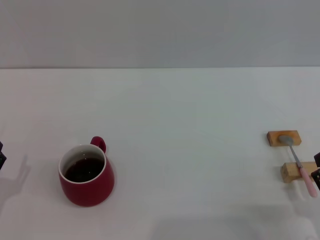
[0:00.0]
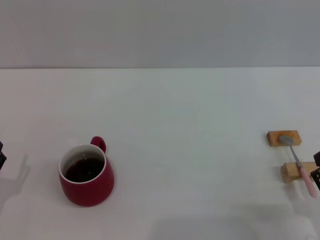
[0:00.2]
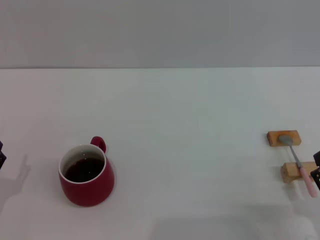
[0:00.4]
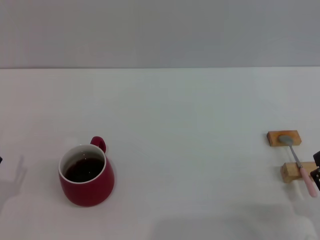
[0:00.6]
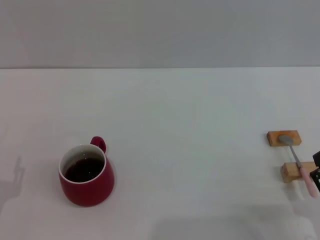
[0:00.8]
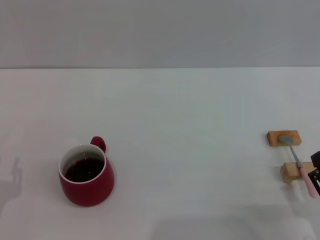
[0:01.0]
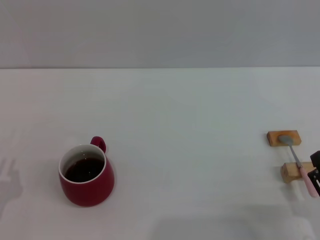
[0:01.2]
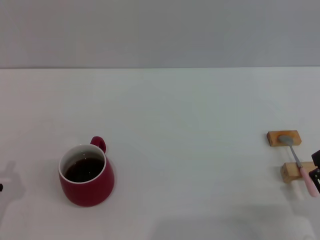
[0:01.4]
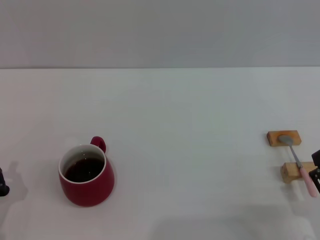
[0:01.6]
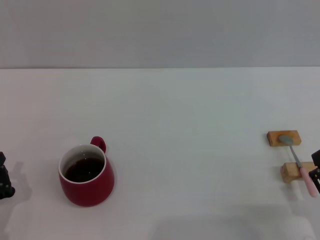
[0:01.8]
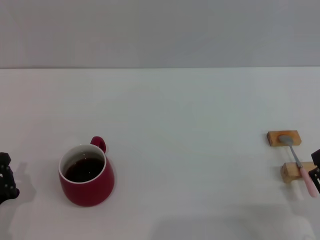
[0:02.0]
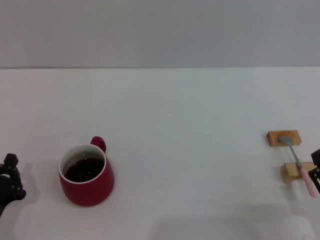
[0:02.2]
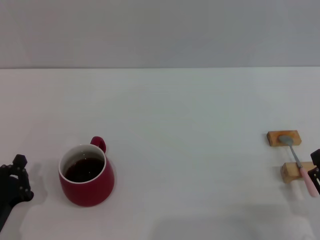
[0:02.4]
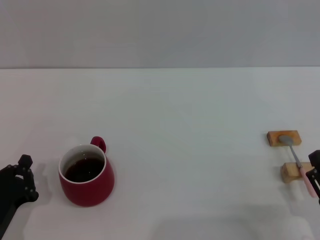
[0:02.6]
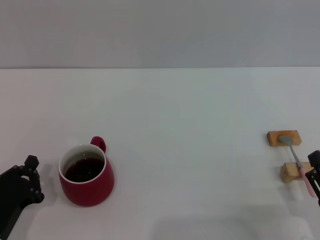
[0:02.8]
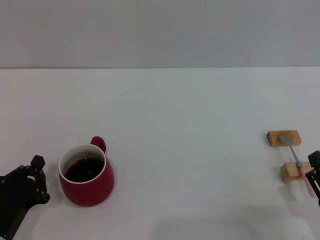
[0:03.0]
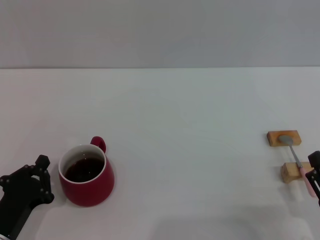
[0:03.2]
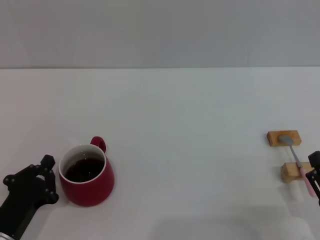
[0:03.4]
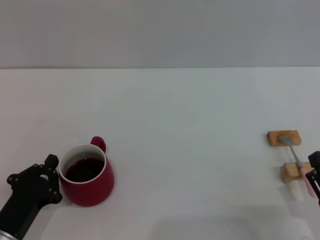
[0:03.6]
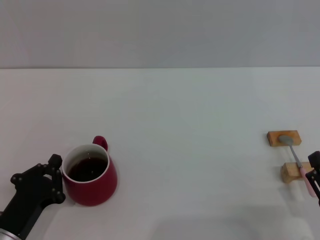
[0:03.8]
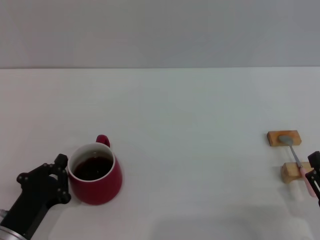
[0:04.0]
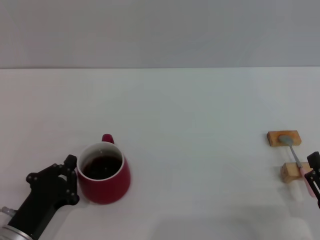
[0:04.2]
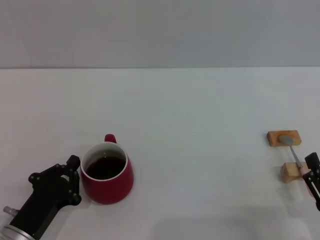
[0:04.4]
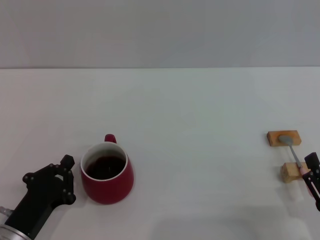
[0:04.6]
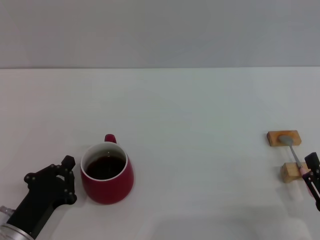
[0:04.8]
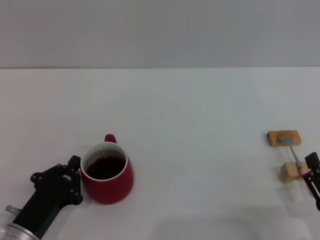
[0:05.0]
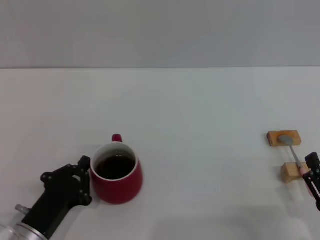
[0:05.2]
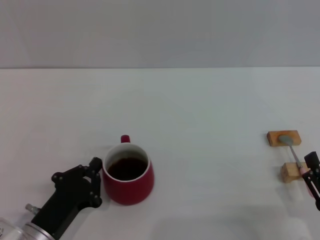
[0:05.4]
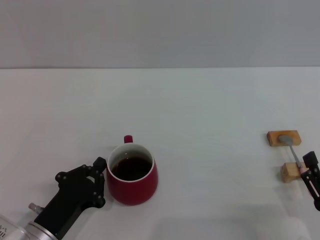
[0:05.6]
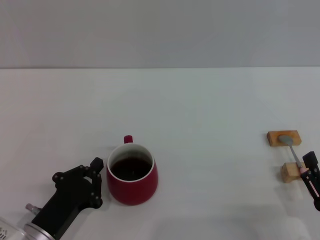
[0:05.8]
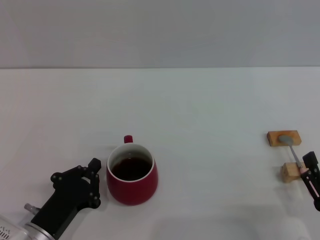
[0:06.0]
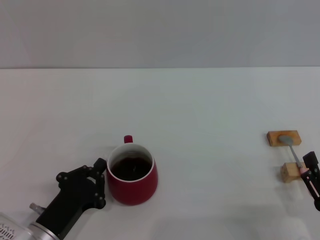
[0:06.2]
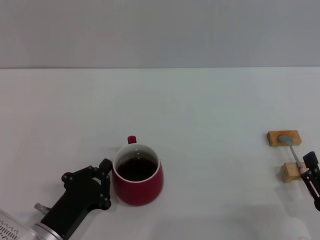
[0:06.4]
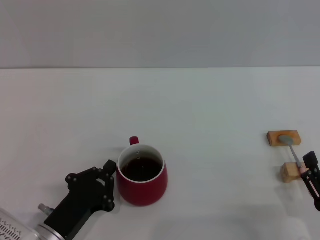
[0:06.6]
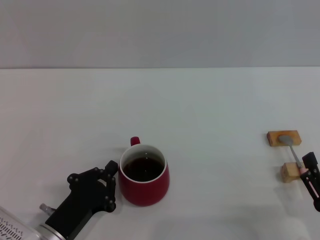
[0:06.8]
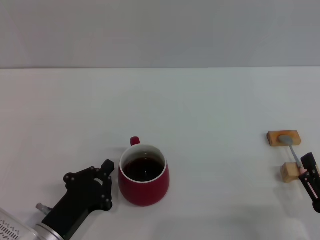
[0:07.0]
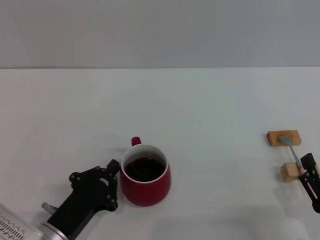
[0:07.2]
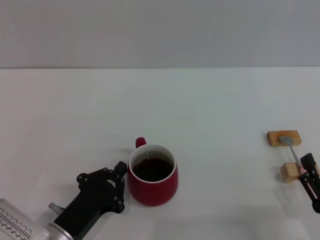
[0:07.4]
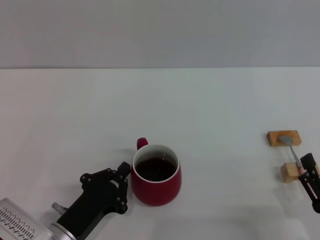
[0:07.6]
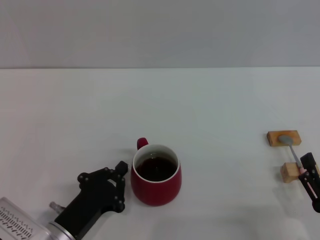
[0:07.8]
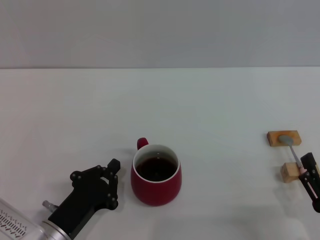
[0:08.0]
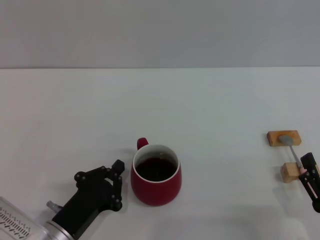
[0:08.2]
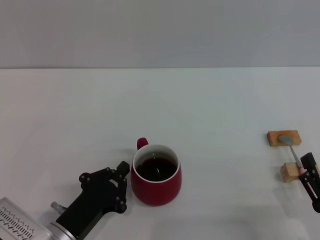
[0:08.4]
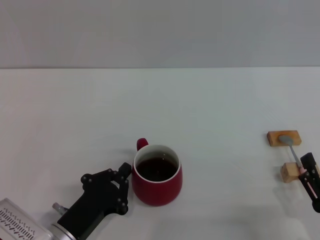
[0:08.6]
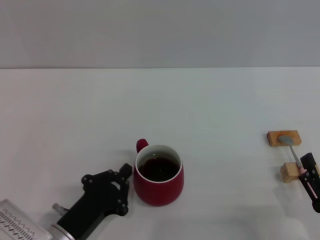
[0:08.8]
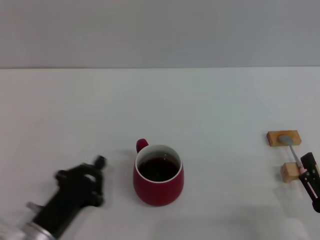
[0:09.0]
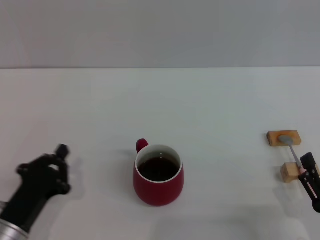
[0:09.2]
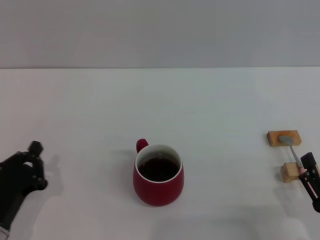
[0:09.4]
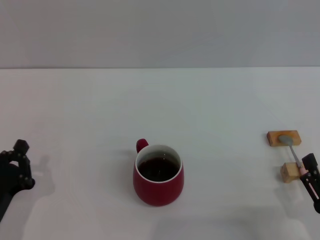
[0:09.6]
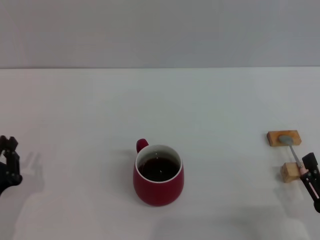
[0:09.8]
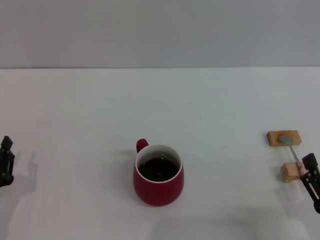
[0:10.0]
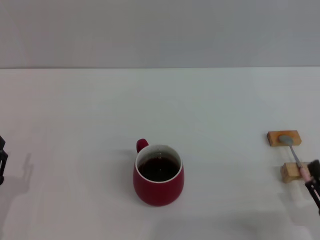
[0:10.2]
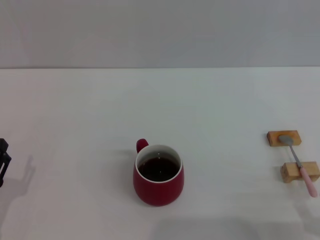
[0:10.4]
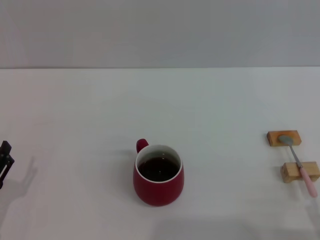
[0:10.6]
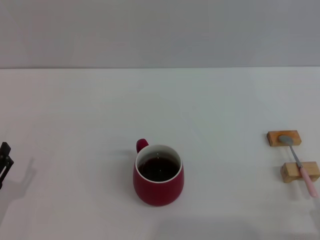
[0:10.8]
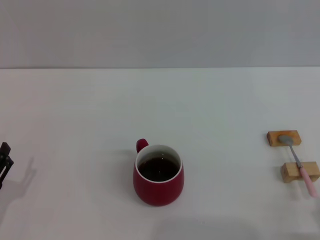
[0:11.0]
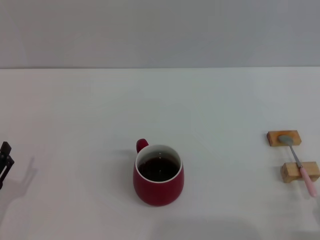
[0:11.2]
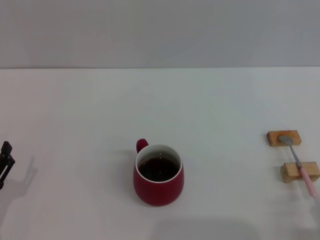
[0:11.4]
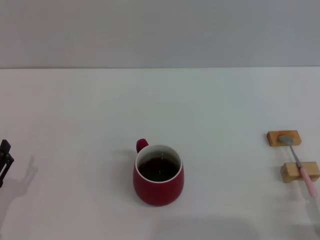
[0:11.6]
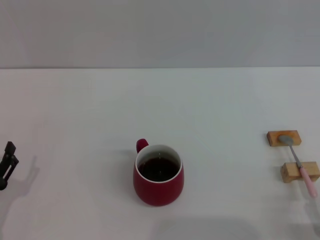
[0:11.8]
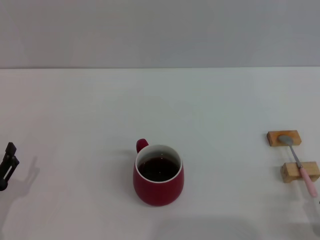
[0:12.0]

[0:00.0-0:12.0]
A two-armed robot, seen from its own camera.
Task of the whole recording: Move the red cup to the center, lift the pink spoon, stir it three times in the cup, and put the spoon into the cup.
Step, 0:00.0 to 0:08.8: Move the cup with coffee to the center of view with the left gripper.
0:01.6 to 0:03.0: The grippers make only small movements.
0:03.0 to 0:06.0: The grippers stay close to where they were, moving slightly.
0:06.0 to 0:09.0: The grippers move only a little.
0:09.0 to 0:10.4: The left gripper shifts roughly 10 cm to the left, and opens its fingers.

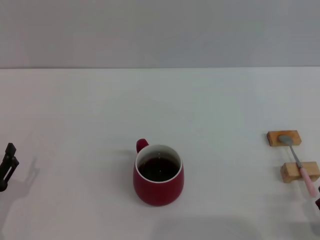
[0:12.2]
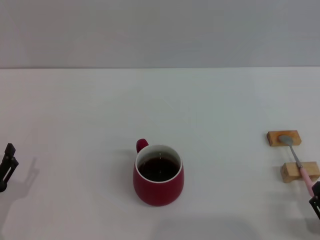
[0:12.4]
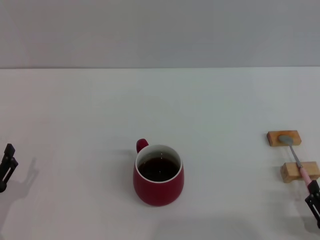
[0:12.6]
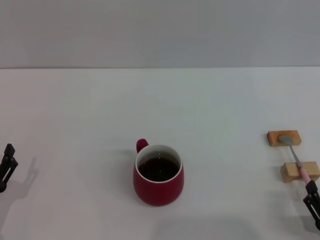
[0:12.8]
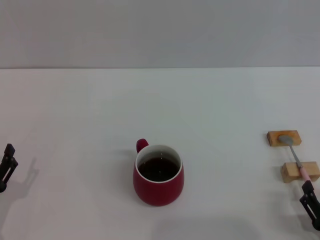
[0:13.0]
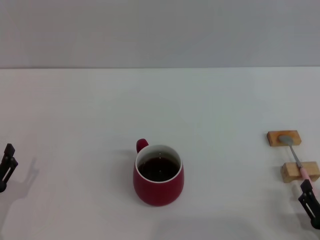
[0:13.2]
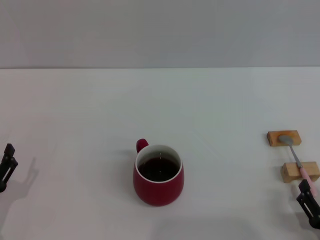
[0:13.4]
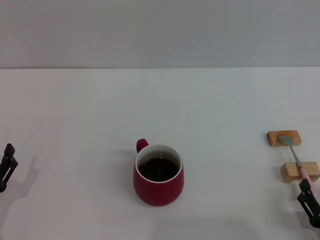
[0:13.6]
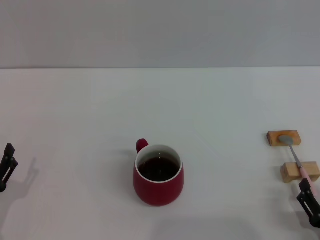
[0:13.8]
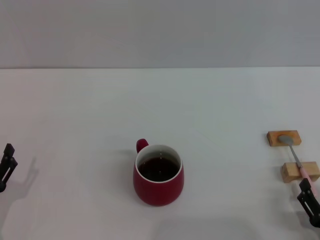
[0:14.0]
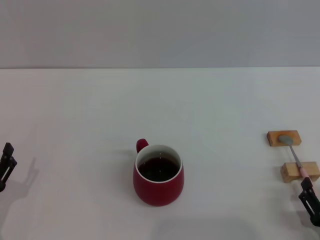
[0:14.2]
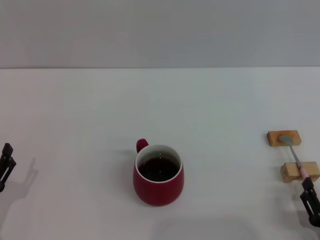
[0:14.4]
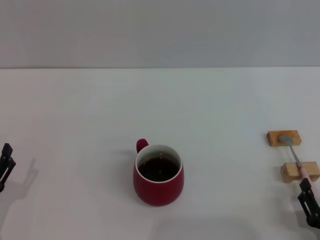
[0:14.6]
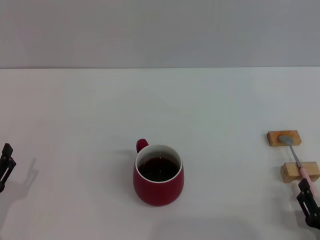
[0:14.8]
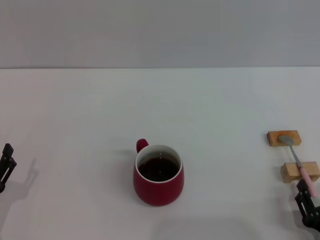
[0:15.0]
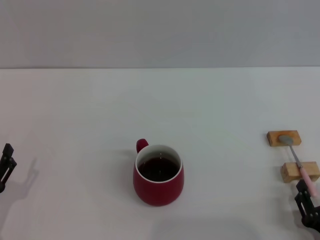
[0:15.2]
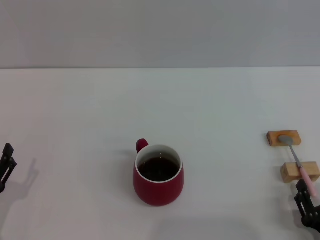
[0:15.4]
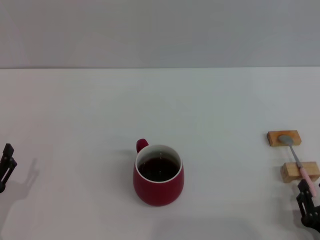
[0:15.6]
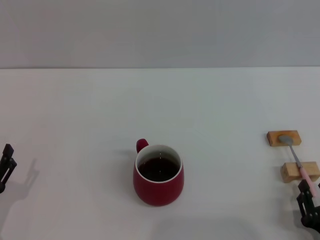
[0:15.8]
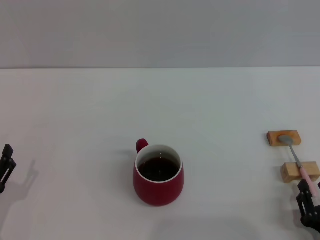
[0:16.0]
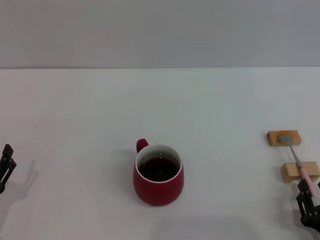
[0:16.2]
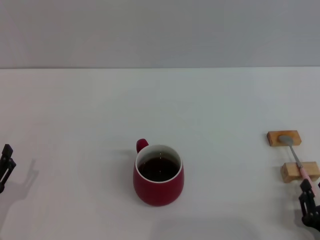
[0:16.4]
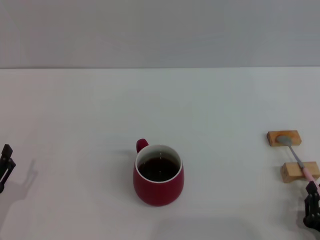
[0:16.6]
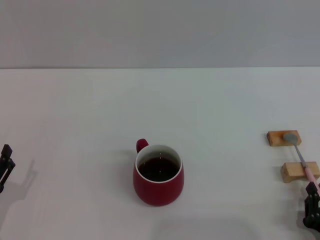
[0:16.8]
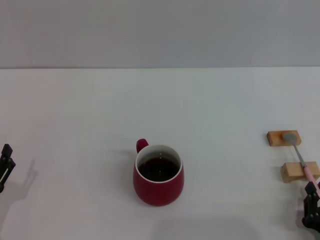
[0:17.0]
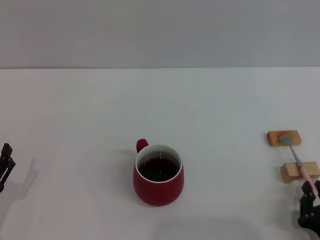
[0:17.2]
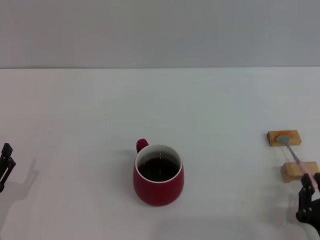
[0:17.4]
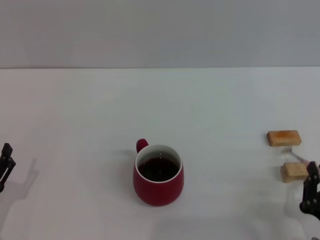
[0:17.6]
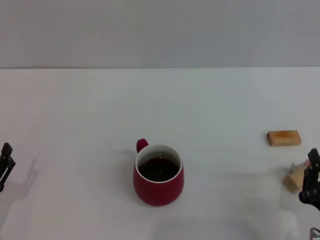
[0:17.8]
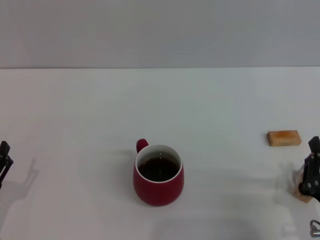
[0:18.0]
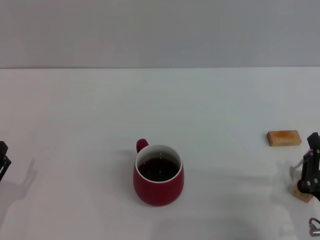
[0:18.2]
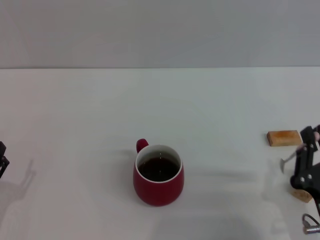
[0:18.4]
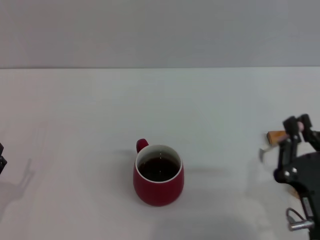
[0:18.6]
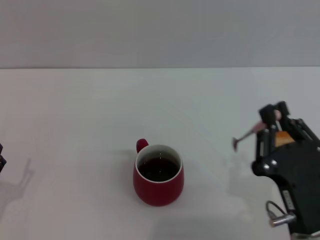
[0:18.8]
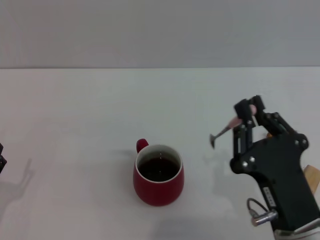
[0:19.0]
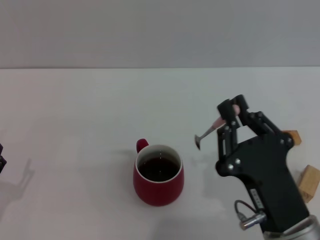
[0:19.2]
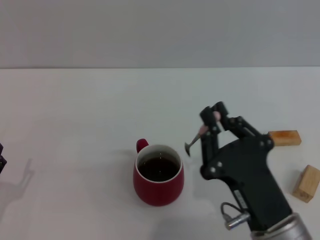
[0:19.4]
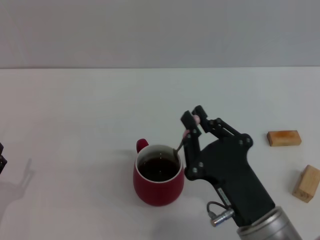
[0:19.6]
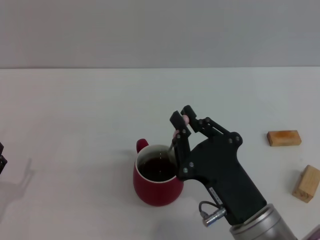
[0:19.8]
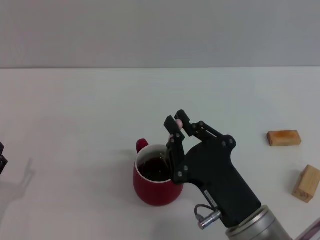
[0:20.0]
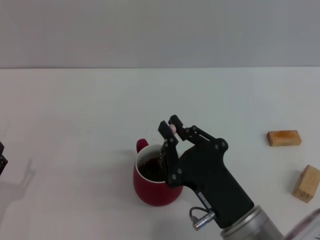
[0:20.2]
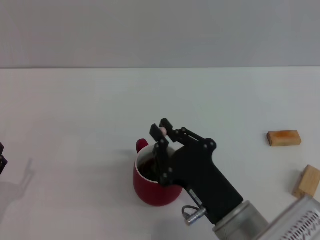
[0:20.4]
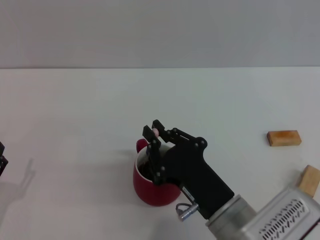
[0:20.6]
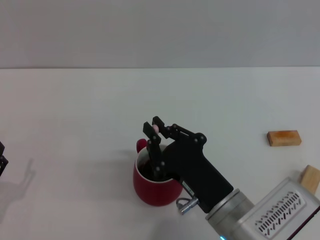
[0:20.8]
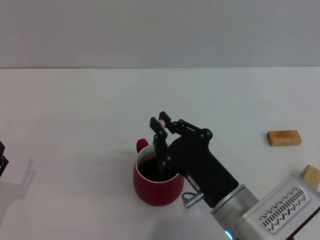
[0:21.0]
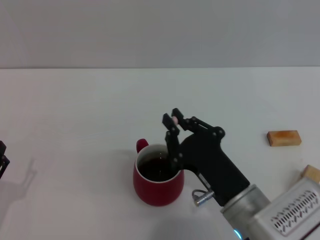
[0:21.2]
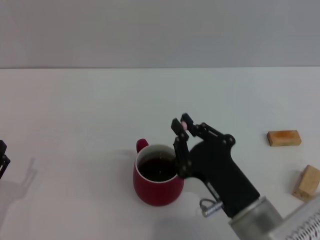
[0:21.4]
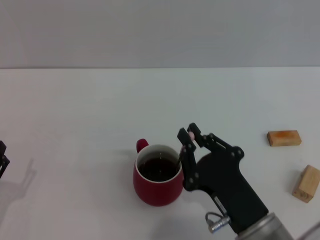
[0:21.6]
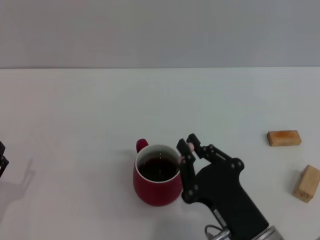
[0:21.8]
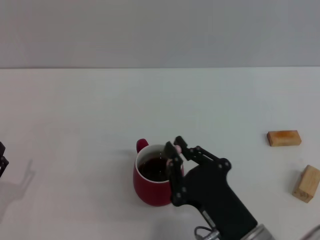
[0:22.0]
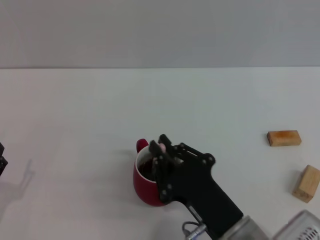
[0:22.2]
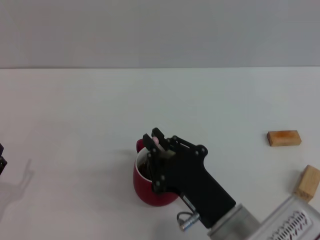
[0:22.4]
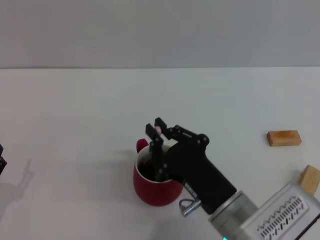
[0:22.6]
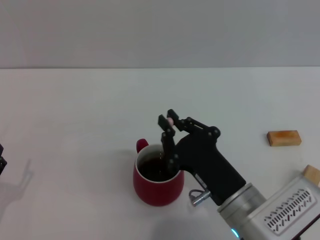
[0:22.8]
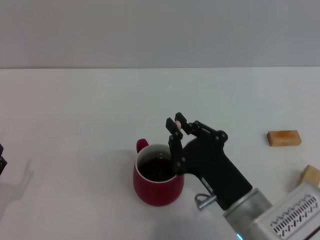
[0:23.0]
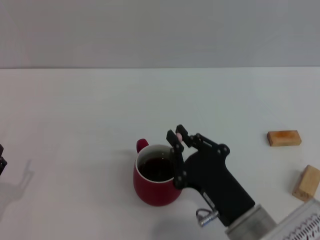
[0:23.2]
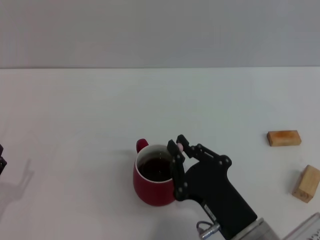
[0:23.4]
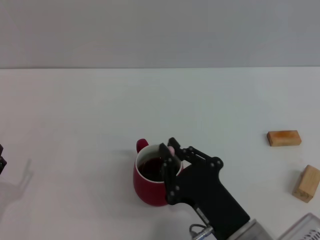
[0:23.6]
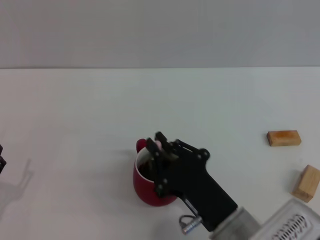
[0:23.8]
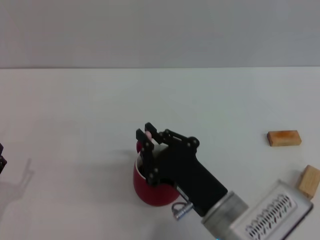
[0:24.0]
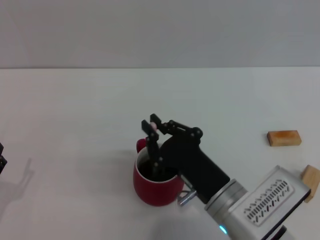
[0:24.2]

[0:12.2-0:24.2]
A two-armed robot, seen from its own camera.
Task of the whole recording: Move the red cup to the center, lift the pink spoon, stir it three times in the cup, and put the spoon into the cup.
Step, 0:12.2 to 0:18.4: Pick up the spoon with the right gripper.
0:12.2 to 0:13.8: The grippers move only a little.
0:13.8 to 0:15.2: The right gripper closes up.
0:15.2 to 0:16.6: Both grippers stay put.
0:16.6 to 0:18.2: The right gripper travels upward by about 5 cm.
0:18.2 to 0:19.8: The right gripper moves to the left, about 10 cm.
0:19.8 to 0:24.2: There are only small adjustments of the grippers.
